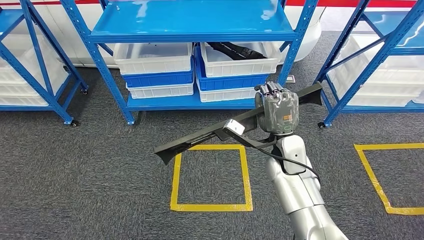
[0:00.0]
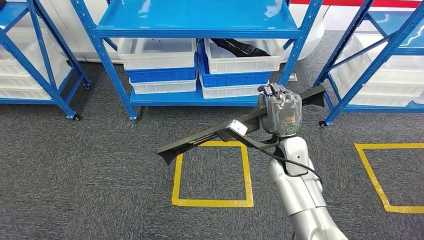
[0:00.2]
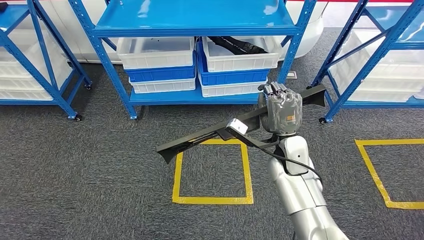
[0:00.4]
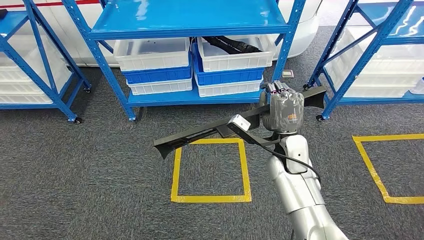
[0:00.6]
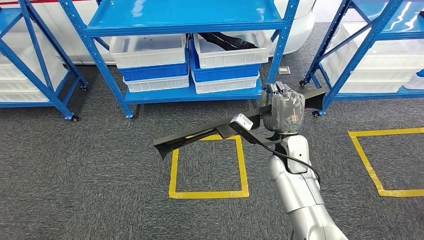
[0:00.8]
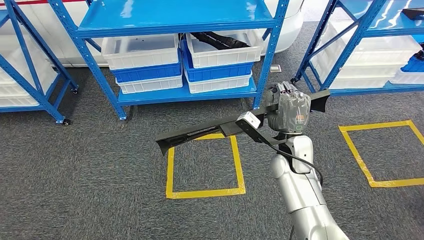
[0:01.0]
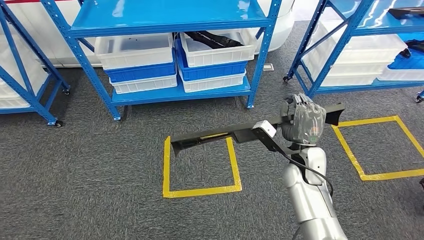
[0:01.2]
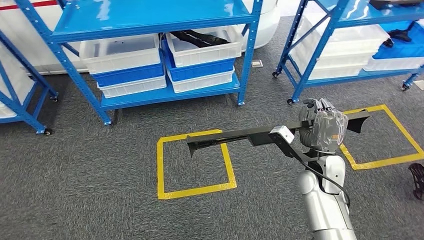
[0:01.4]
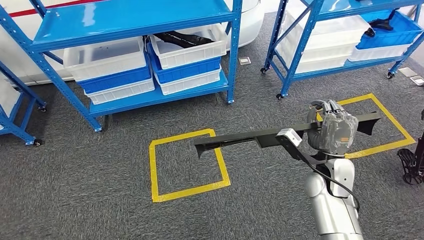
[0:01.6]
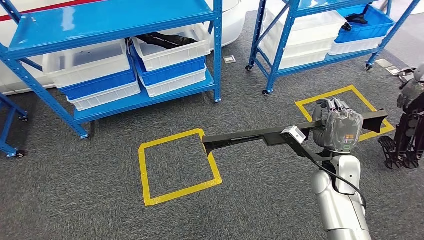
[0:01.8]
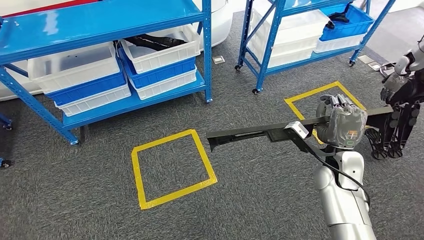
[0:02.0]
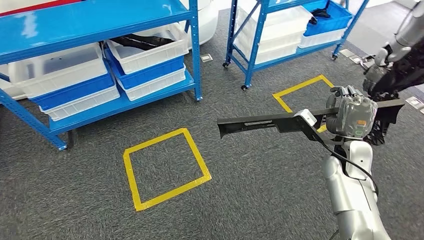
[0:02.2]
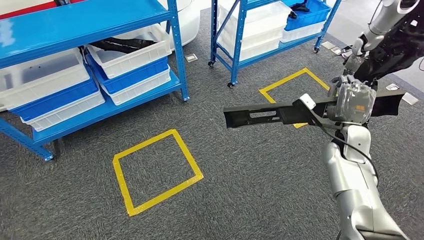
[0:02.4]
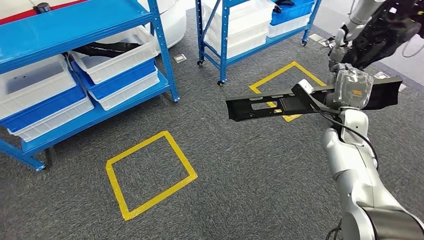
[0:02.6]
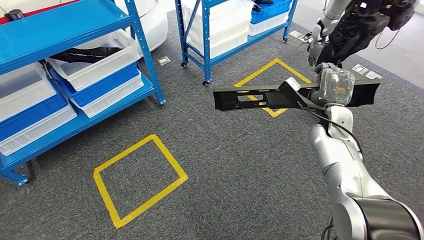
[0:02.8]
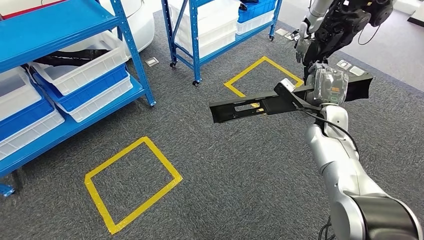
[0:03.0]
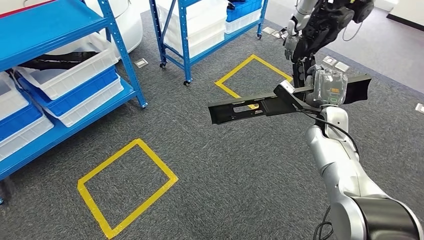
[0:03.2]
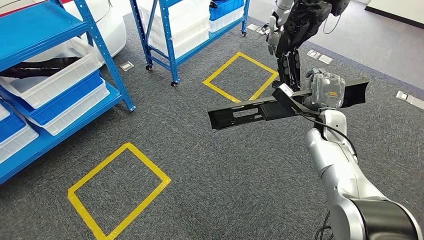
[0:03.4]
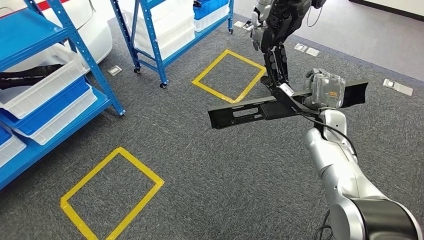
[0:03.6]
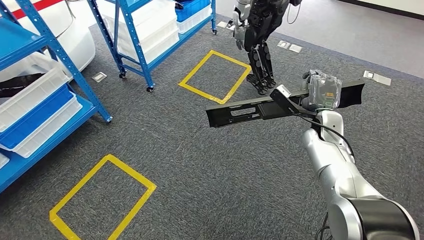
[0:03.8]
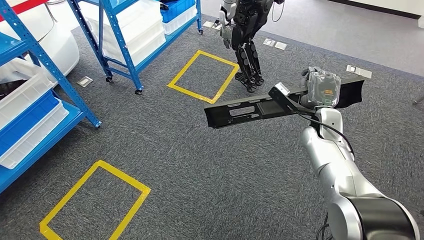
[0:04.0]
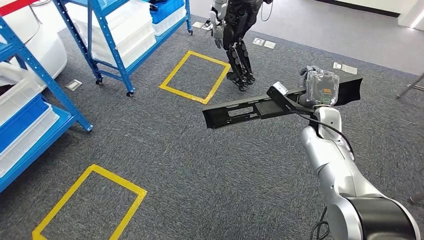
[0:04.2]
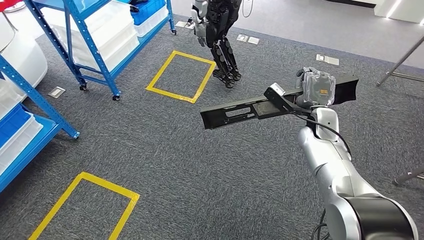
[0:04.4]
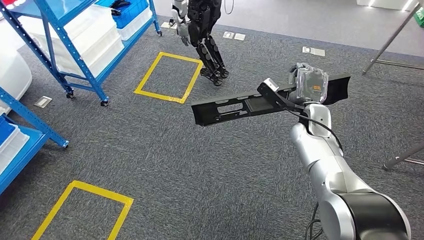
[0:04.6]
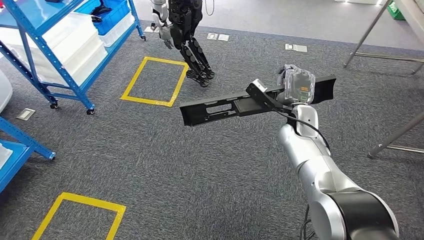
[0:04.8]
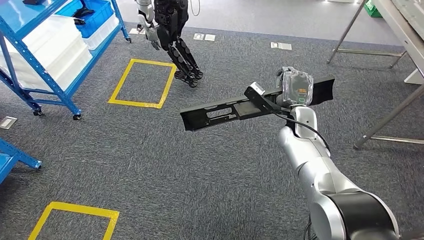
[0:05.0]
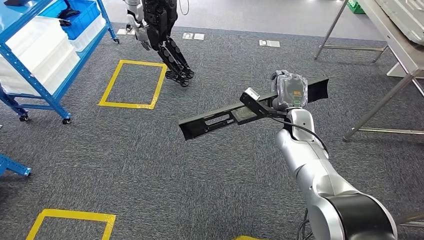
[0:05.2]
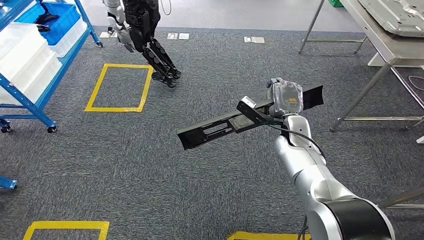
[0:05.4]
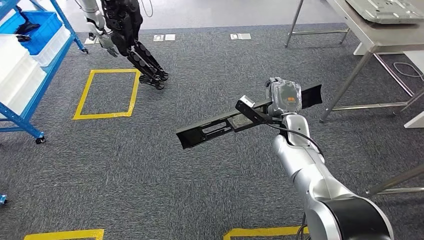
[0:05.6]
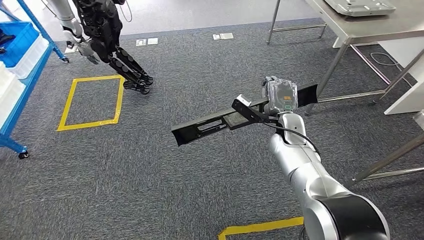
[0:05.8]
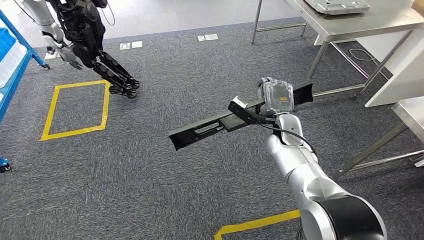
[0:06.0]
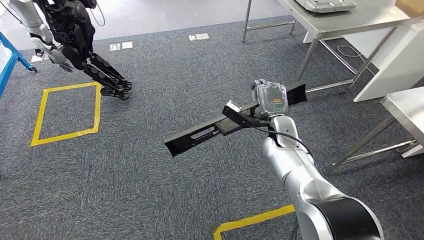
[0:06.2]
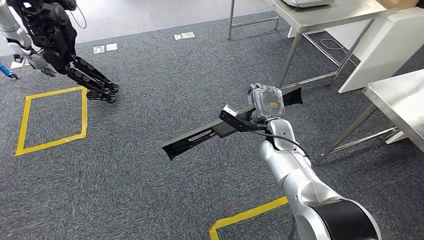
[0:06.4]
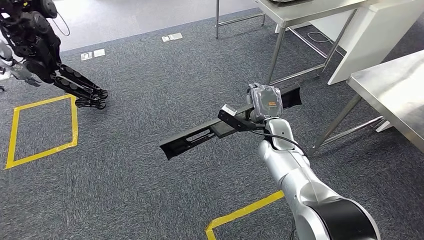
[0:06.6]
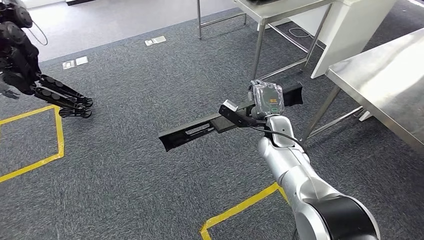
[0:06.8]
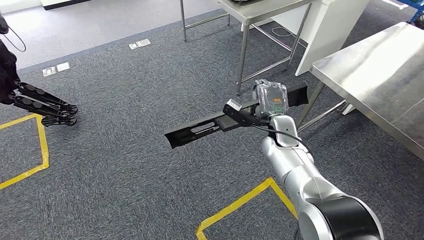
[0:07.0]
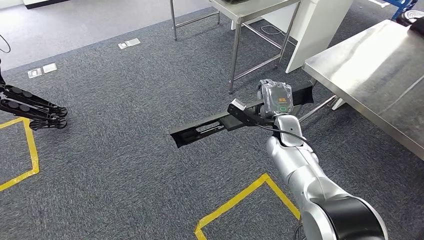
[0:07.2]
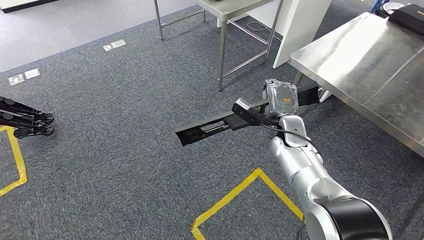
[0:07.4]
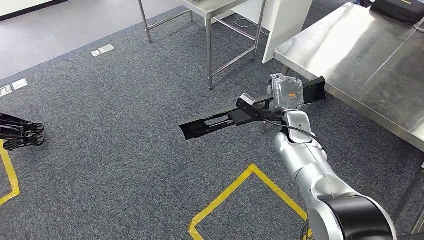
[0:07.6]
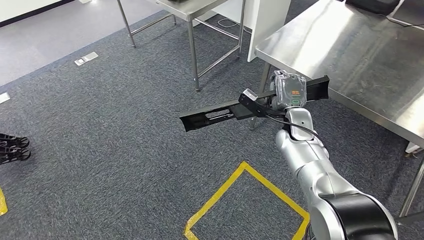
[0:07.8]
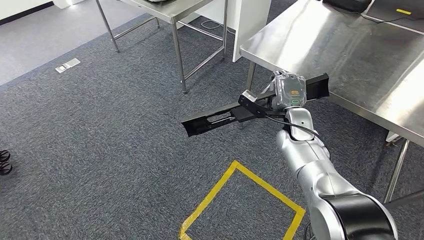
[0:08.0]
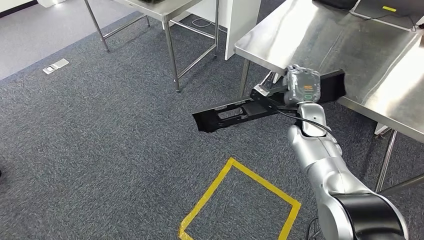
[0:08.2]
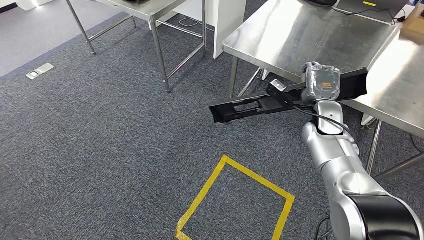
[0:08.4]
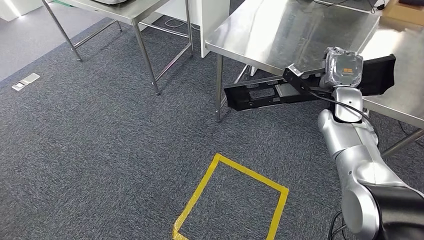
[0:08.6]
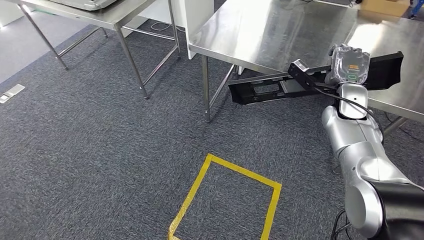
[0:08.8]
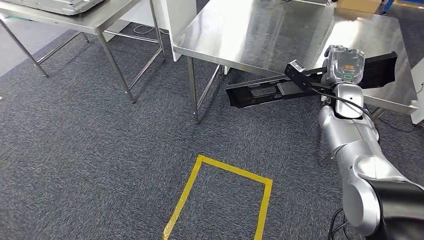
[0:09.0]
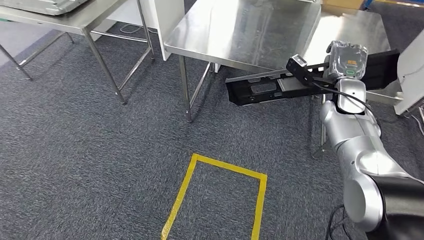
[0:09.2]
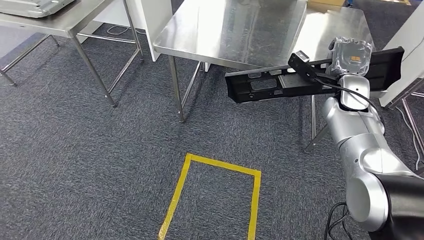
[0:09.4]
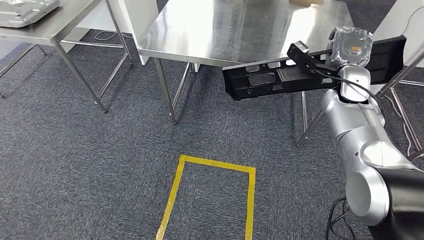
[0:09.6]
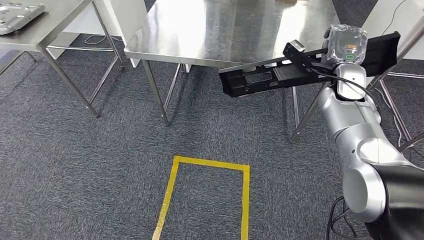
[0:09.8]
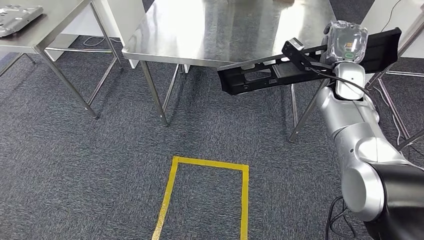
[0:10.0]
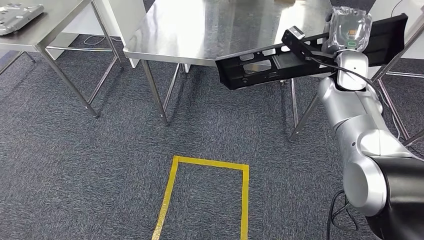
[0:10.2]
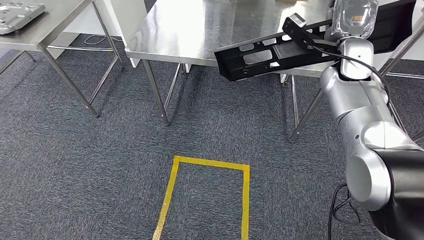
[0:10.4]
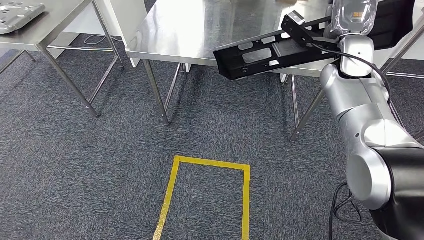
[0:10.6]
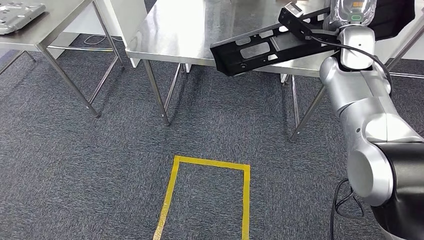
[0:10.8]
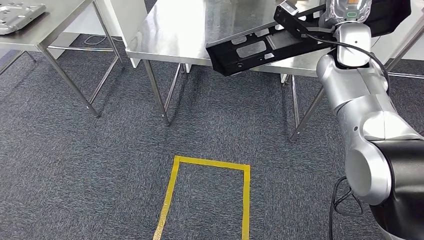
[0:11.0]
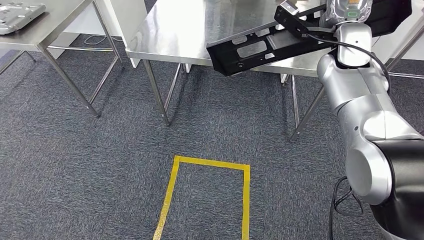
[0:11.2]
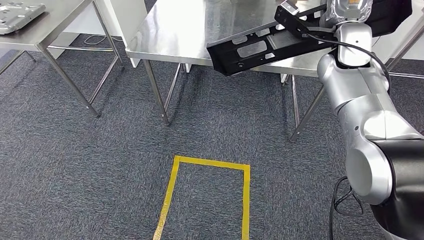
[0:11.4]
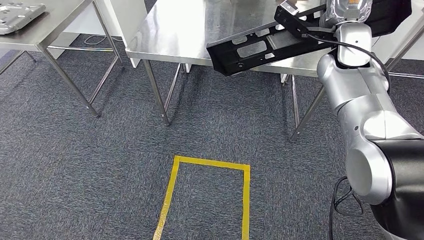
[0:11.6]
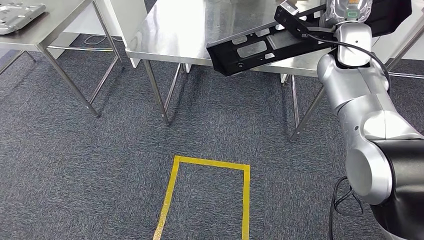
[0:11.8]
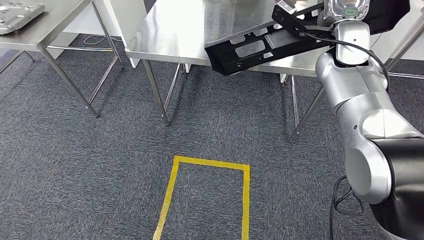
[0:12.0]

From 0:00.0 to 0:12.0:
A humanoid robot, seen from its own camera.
From 0:10.4 to 0:12.0: The hands stay close to where they were, moving slightly.

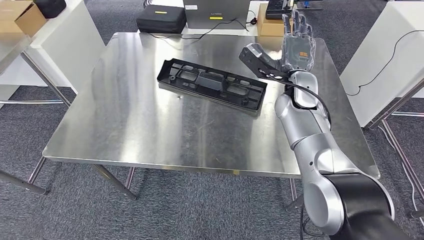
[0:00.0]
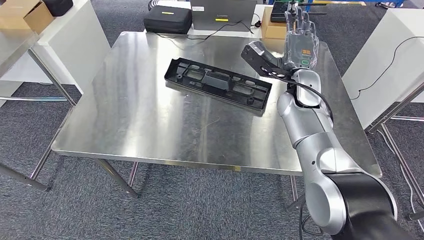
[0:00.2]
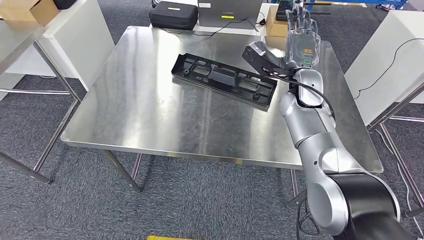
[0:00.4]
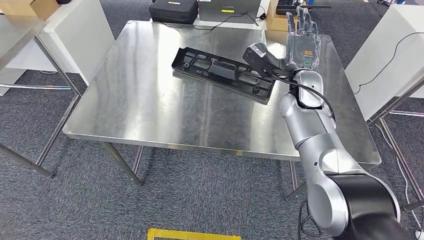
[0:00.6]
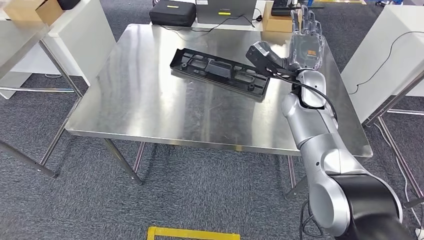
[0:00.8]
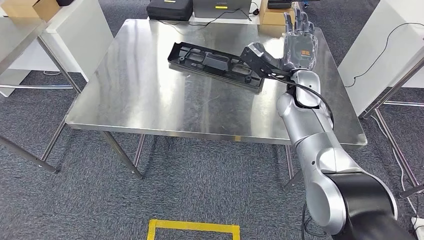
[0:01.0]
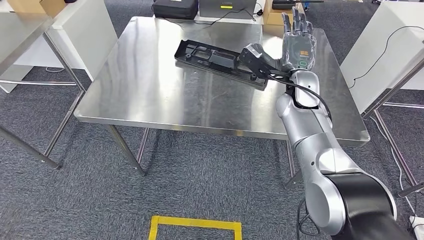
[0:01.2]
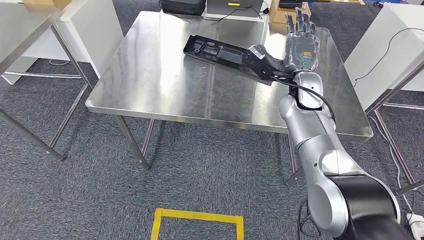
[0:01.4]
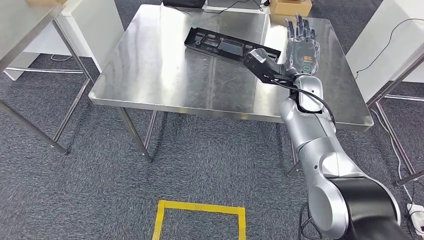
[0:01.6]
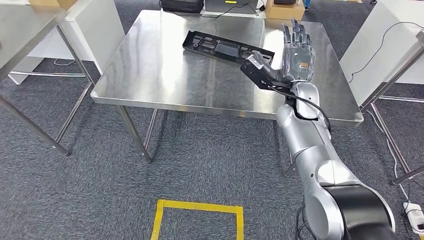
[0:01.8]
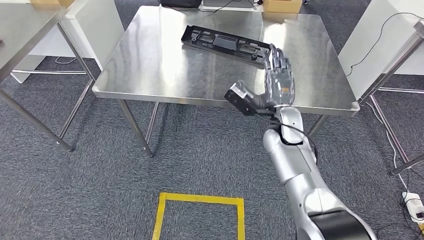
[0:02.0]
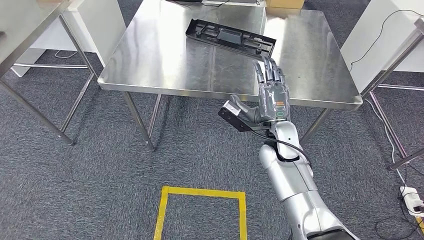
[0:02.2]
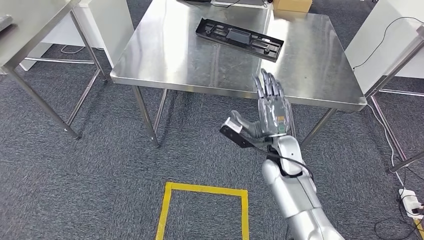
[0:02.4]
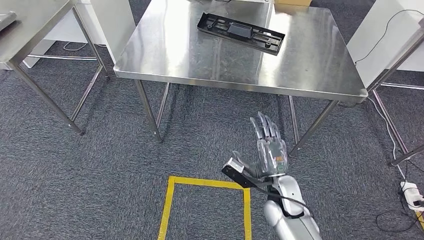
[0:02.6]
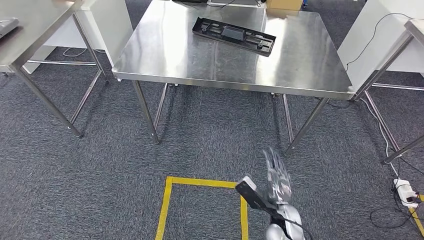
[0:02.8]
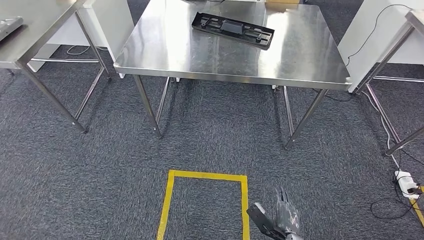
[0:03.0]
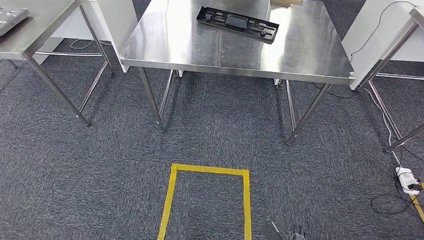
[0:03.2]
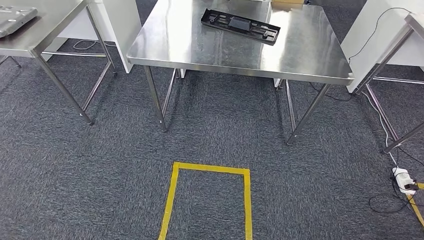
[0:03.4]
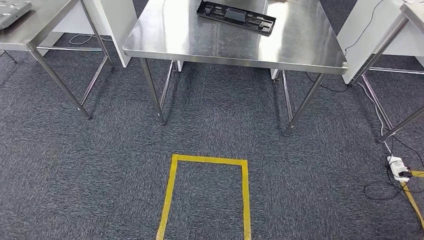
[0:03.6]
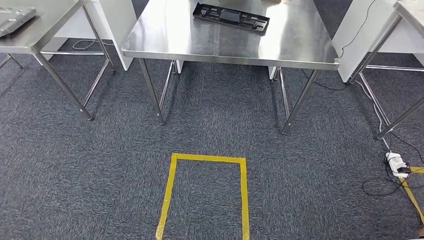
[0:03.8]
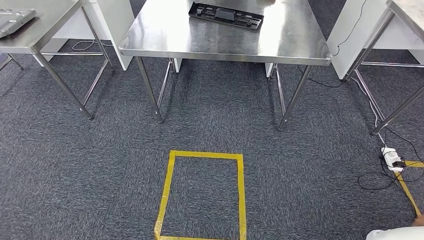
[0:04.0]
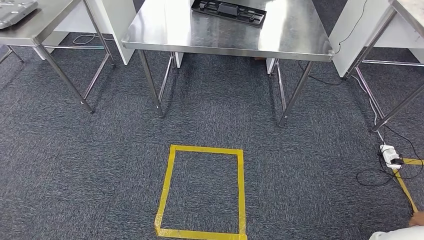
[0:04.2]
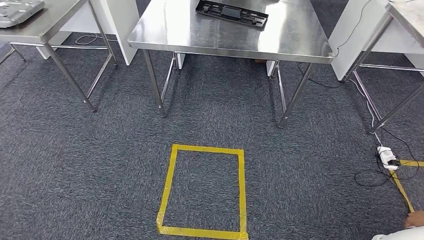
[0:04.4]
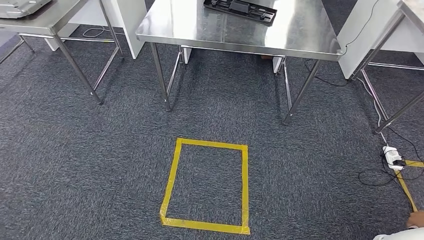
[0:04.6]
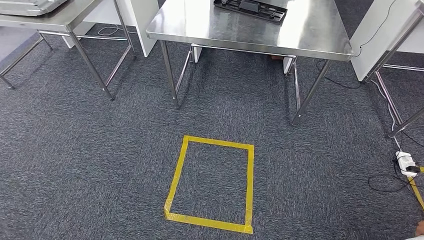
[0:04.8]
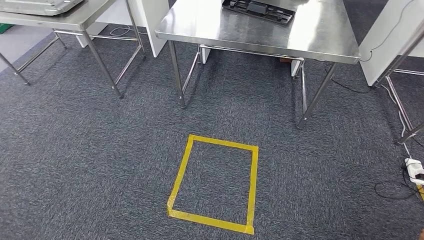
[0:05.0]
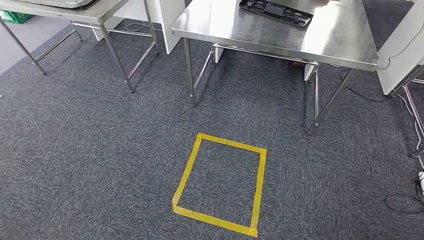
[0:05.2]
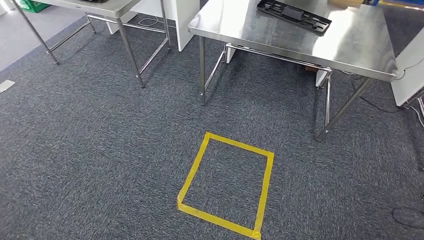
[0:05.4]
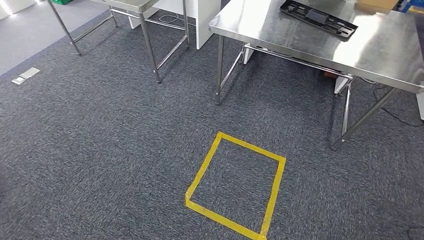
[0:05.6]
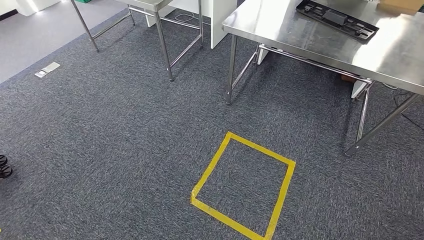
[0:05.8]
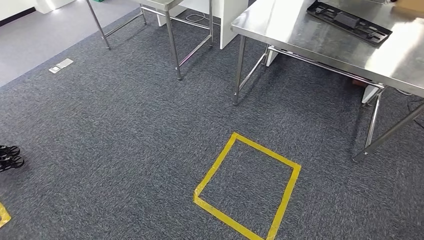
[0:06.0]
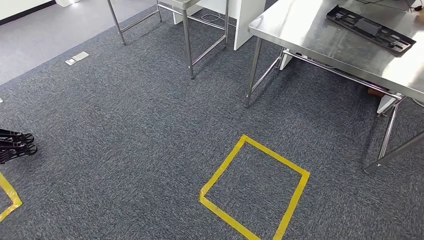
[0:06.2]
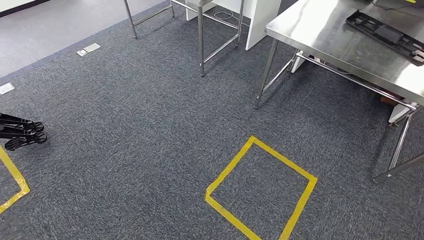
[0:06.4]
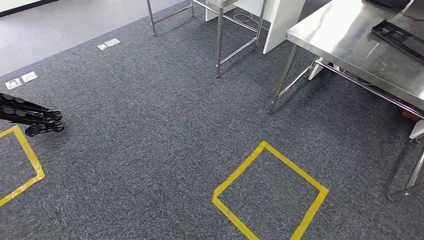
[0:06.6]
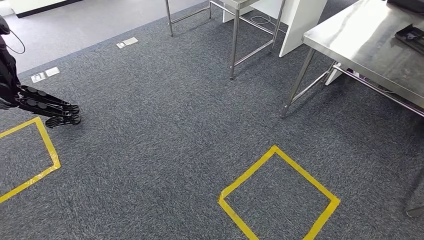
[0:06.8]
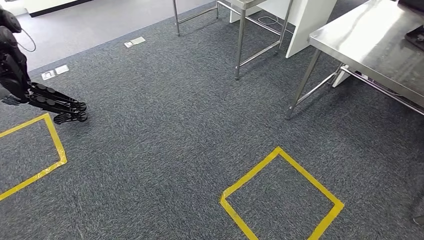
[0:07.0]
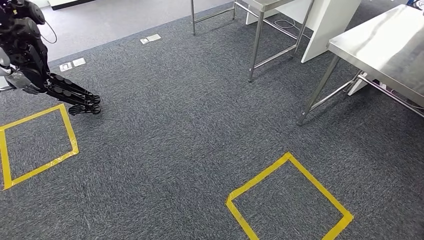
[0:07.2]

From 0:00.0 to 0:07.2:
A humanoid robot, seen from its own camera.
Step, from 0:00.0 to 0:04.2: Insert the large material into the corresponding slot on the workbench.
